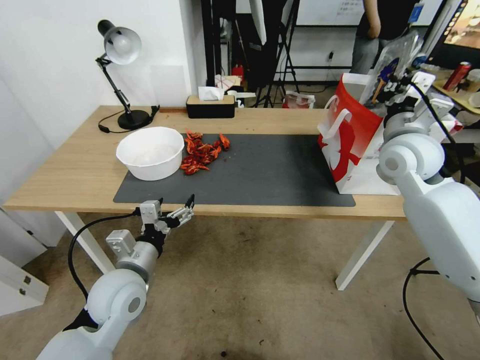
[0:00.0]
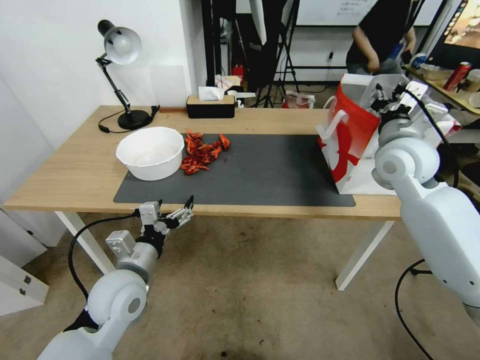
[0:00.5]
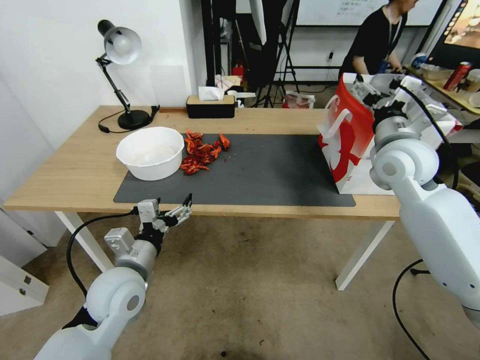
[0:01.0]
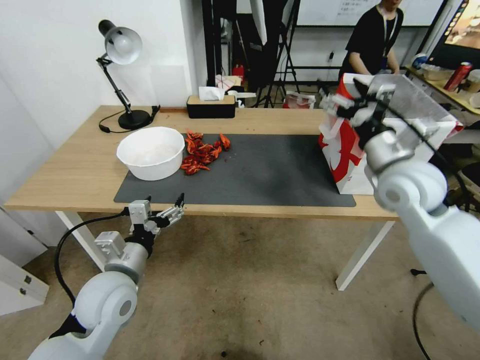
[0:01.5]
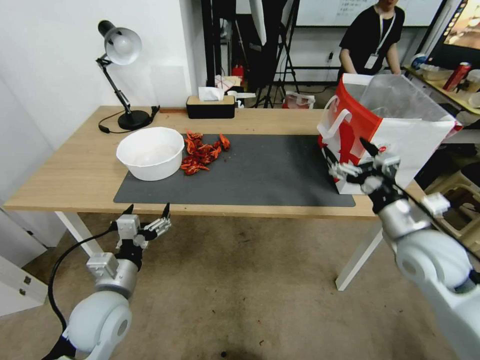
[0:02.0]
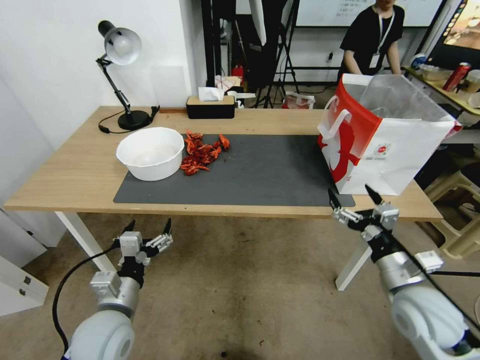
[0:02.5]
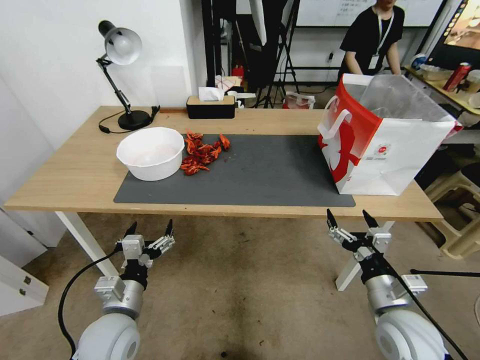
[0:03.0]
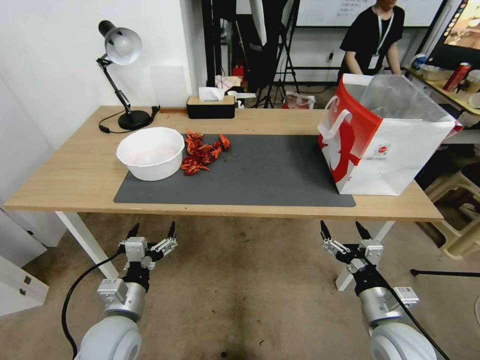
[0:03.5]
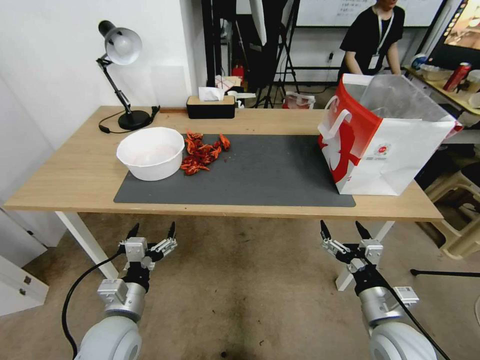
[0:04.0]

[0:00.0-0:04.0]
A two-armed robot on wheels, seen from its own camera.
Task of the whole recording: Close the takeout container lid, then place the container into the takeout bag.
0:00.0 to 0:02.0: The right gripper moves backward and downward, approximately 20 cm, and opens its fingers. Meanwhile the left gripper changes place by approximately 5 cm.
0:02.0 to 0:04.0: The left gripper ends up some 5 cm from where it was. Meanwhile the right gripper is displaced downward and backward by some 15 cm.

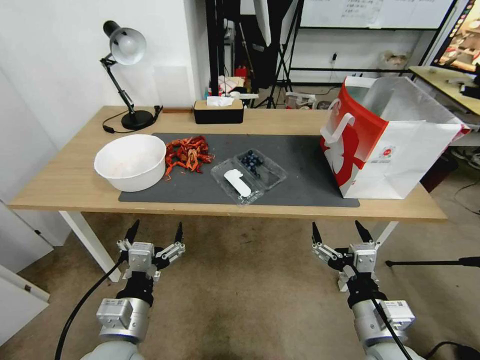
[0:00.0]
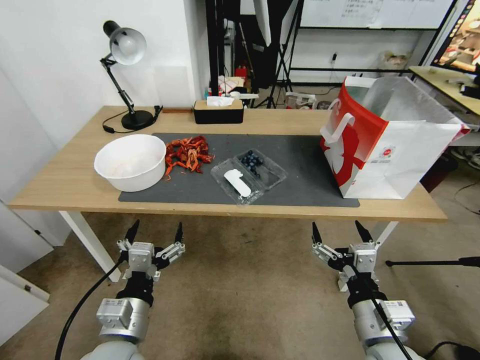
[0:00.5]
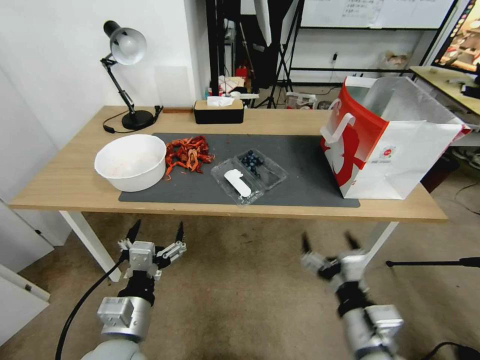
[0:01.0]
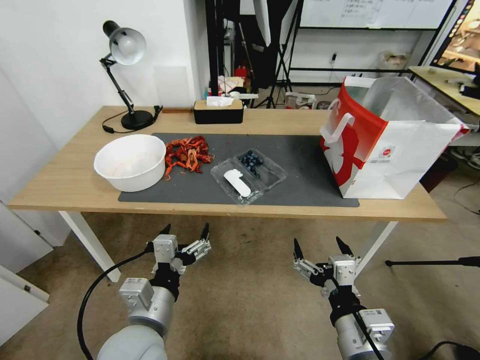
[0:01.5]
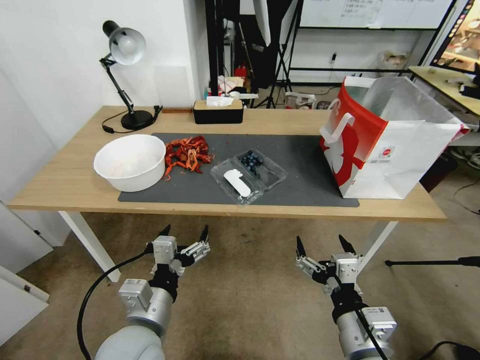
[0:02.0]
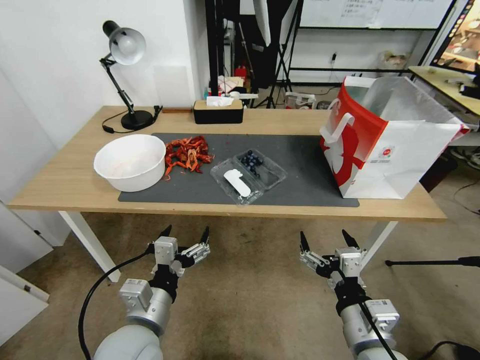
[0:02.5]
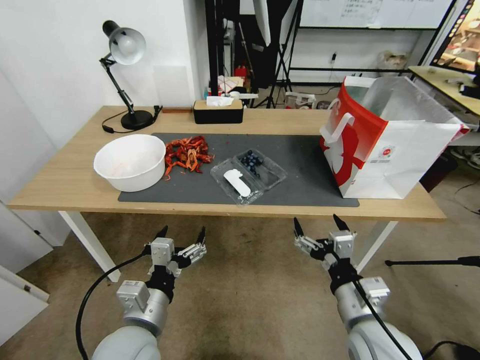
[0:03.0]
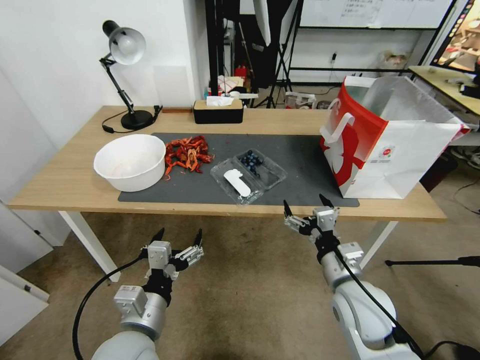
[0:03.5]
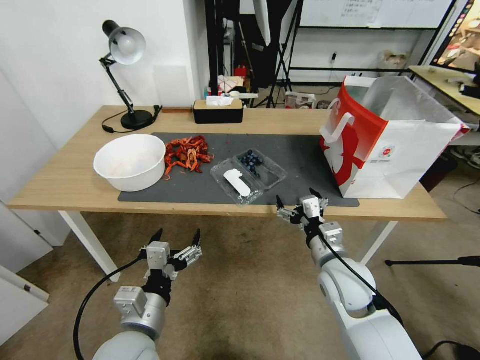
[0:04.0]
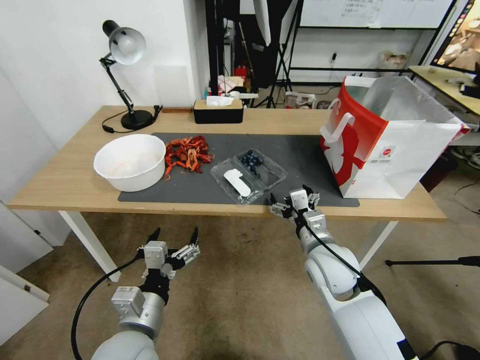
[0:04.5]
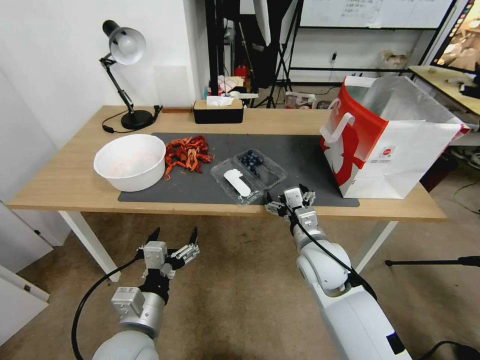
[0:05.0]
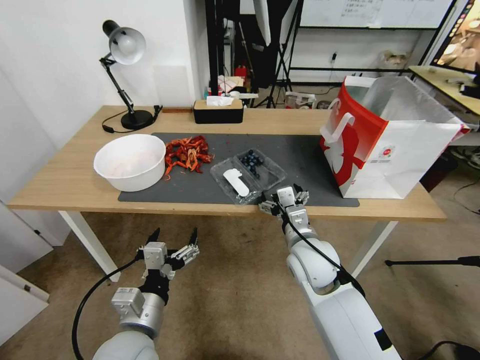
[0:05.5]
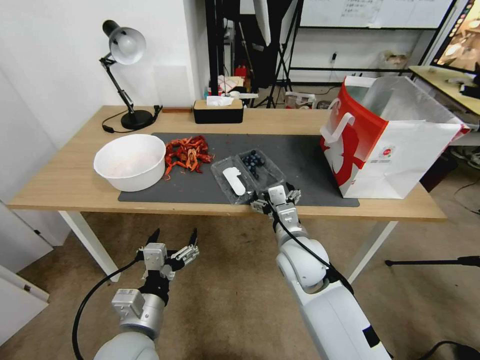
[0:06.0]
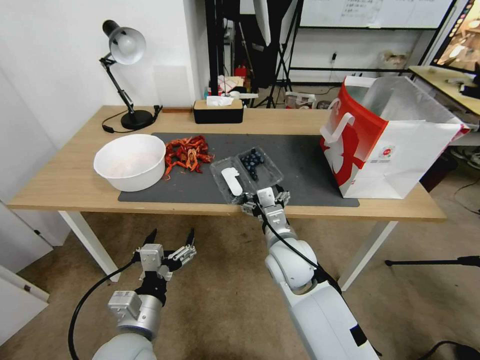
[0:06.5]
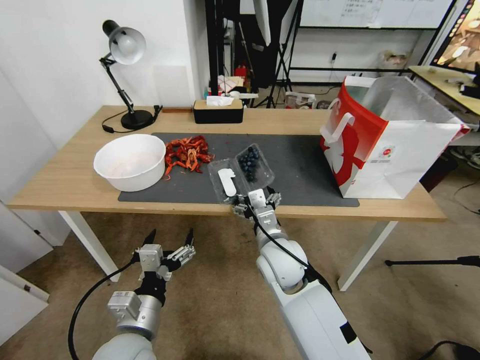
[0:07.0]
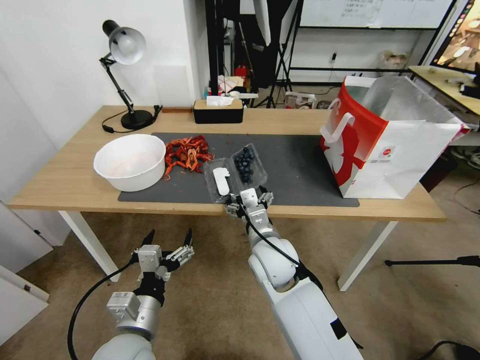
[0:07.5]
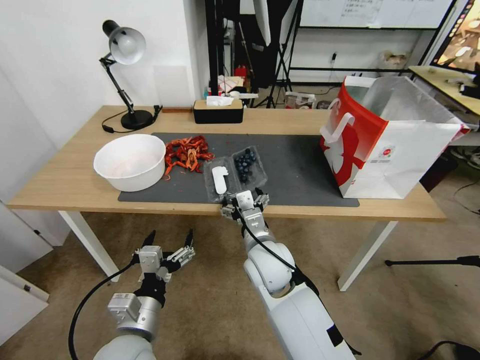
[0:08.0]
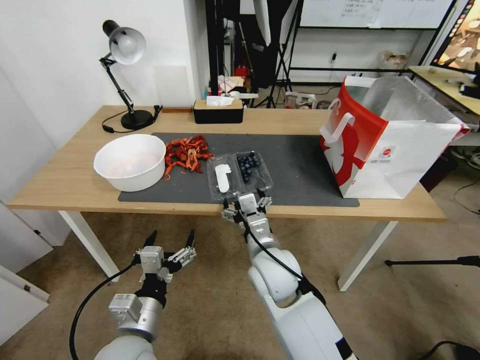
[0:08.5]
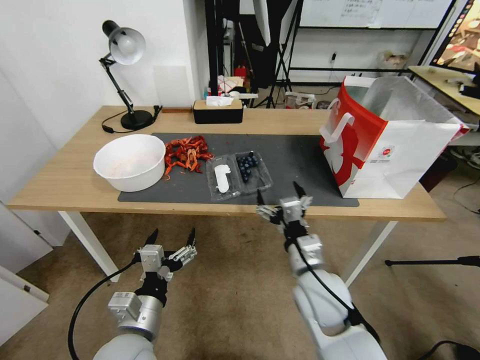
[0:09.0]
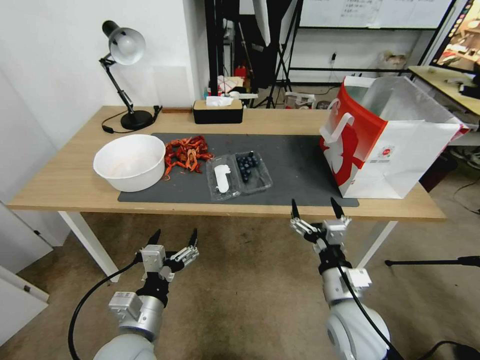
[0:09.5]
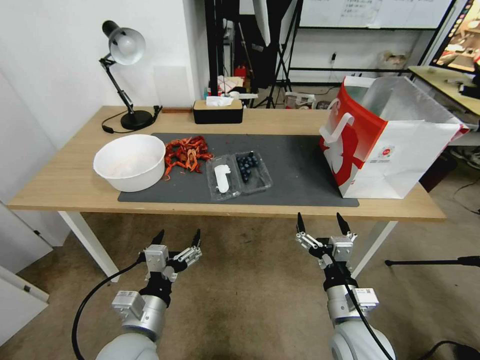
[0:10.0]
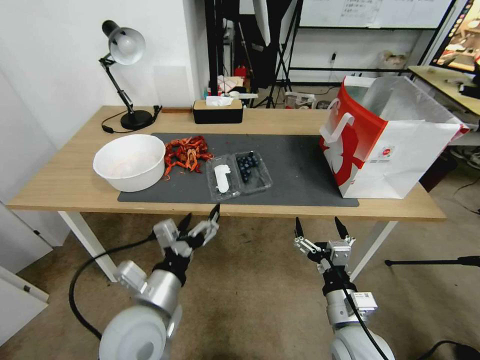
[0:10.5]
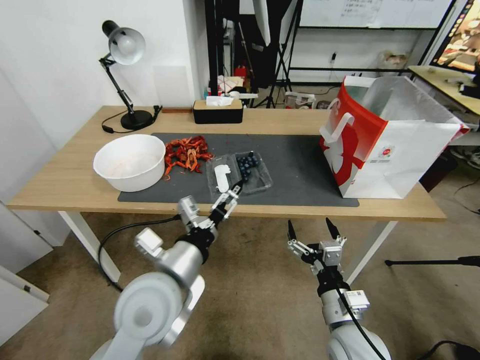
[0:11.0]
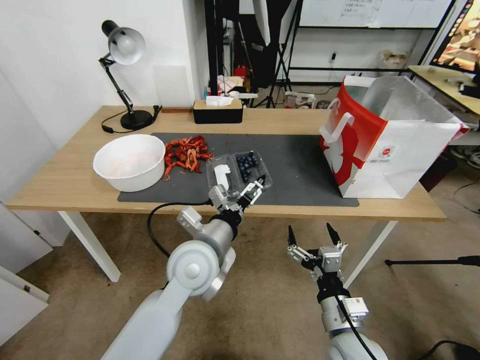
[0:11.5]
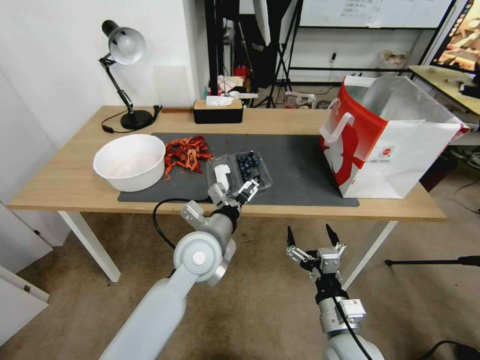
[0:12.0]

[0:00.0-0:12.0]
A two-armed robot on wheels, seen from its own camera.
Task of the whole recording: Close the takeout container lid, then place the container into the takeout bag.
0:02.0 to 0:04.0: The right gripper goes about 15 cm forward.
0:04.0 to 0:06.0: The right gripper is displaced to the left by some 10 cm.
0:06.0 to 0:08.0: The right gripper moves to the left, roughly 5 cm.
0:08.0 to 0:10.0: The right gripper moves to the right and backward, some 20 cm.
0:10.0 to 0:12.0: The left gripper goes approximately 20 cm forward, to the right and upward.

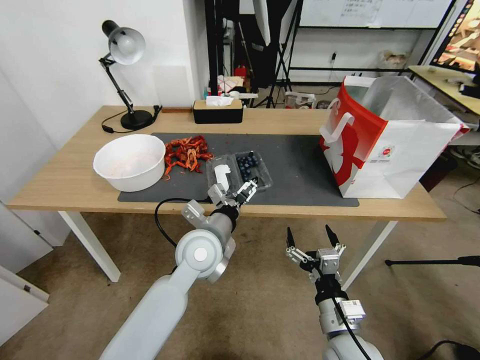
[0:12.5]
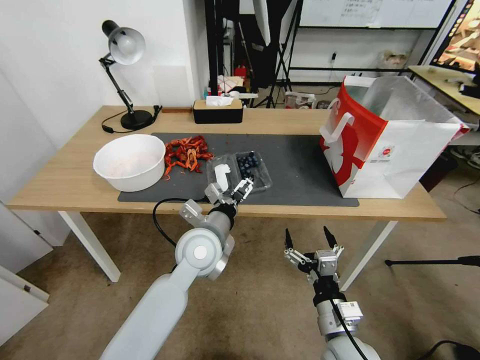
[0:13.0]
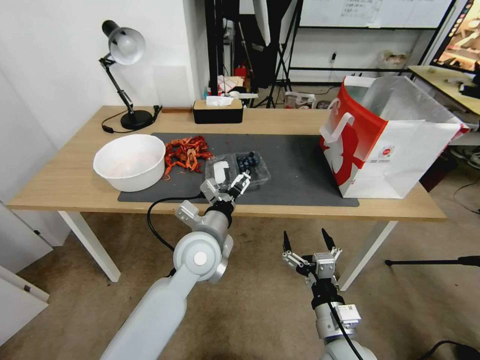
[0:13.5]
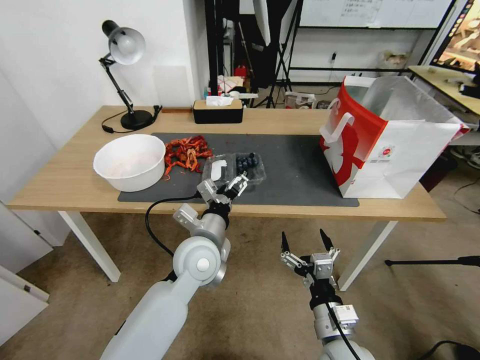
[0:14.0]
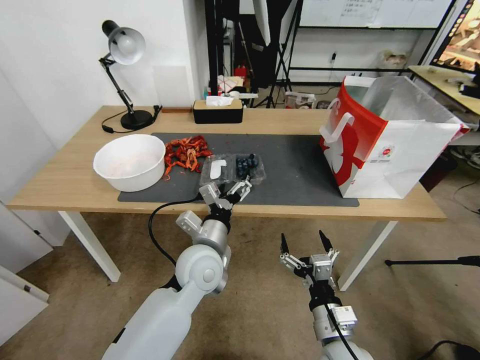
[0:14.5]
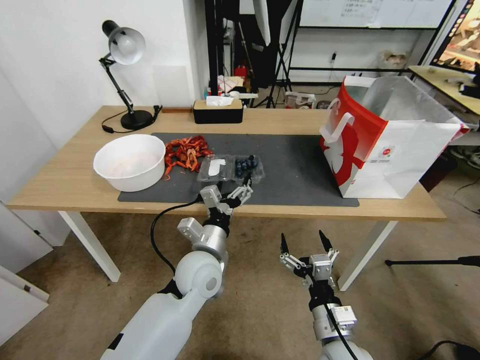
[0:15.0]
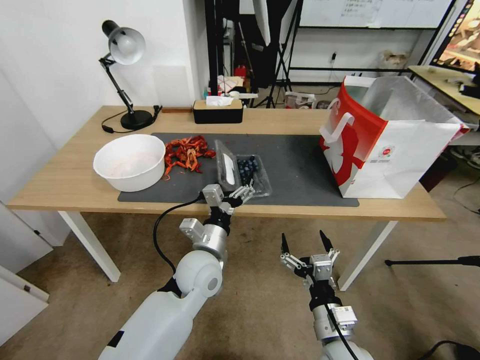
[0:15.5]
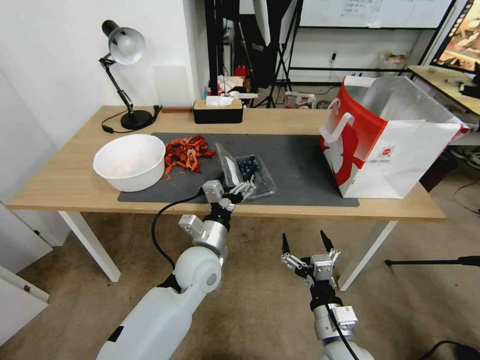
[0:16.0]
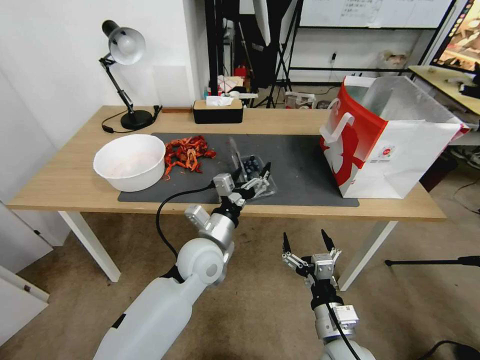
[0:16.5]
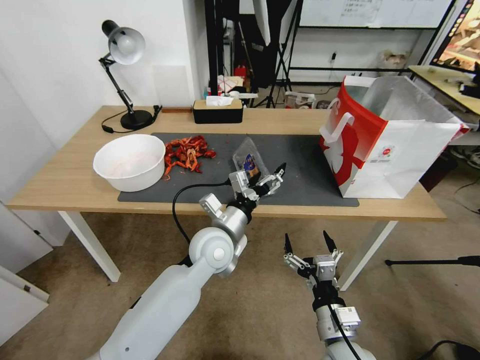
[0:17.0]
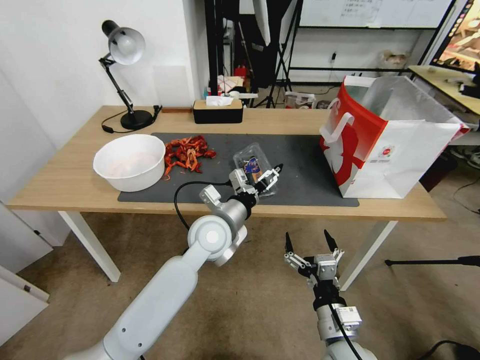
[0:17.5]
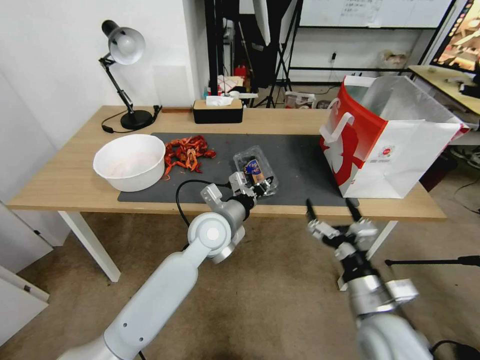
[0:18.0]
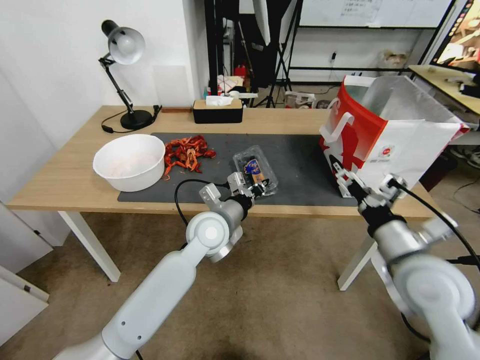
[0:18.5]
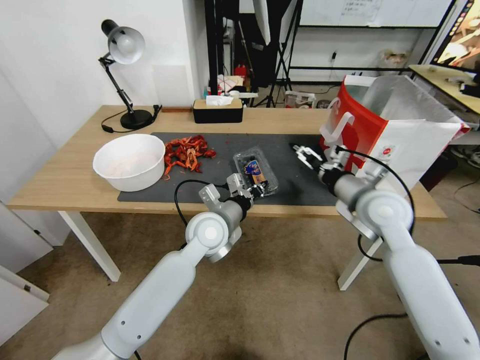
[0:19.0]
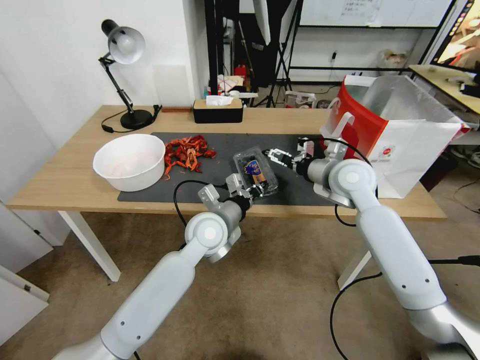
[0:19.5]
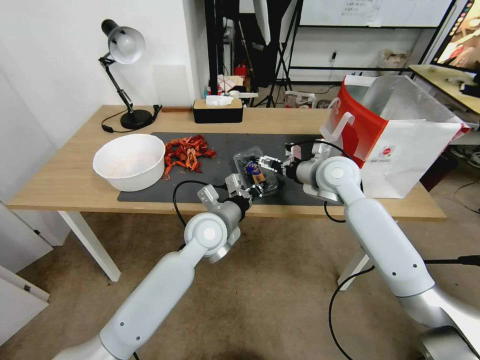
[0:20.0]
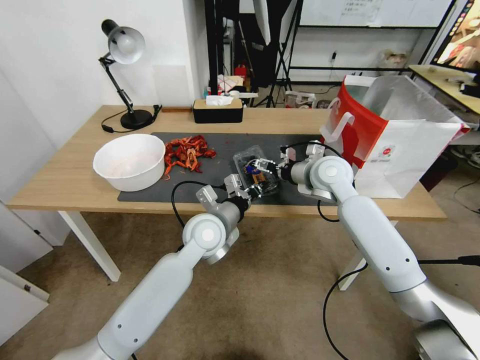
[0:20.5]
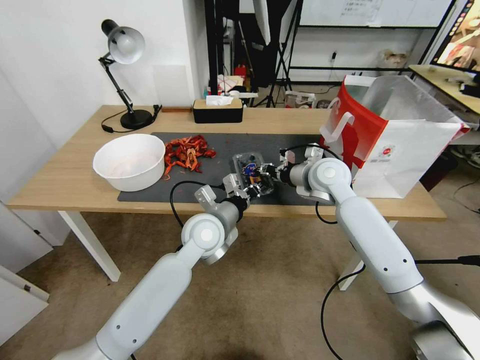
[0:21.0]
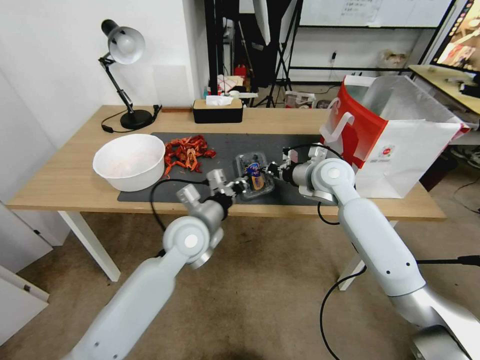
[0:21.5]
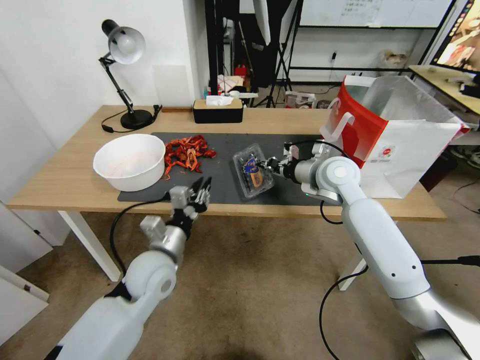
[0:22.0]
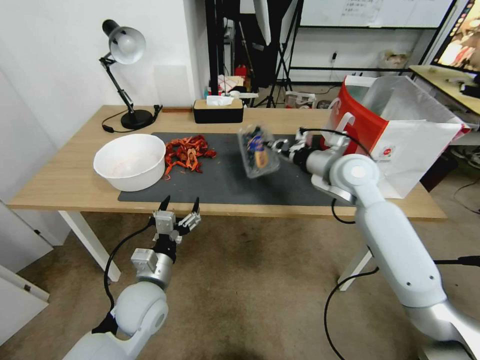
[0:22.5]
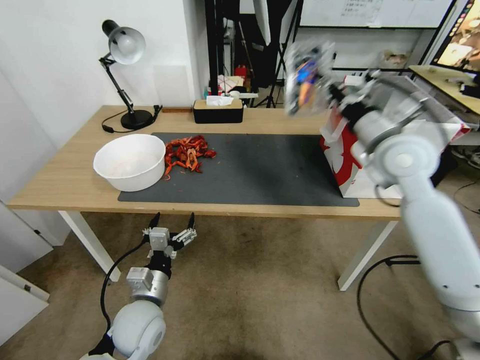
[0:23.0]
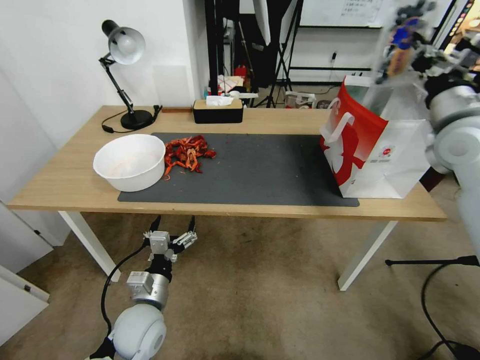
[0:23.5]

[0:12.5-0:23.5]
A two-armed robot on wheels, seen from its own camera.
Task of the whole recording: Close the takeout container lid, then place the container into the takeout bag.
0:14.5 to 0:16.0: The grippers stay close to where they were, moving slightly.
0:16.0 to 0:18.0: The right gripper heads upward and to the right, covering some 10 cm, while the left gripper heads forward, covering approximately 5 cm, and closes.
0:18.0 to 0:20.0: The right gripper goes about 30 cm forward.
0:20.0 to 0:21.5: The right gripper closes up.
0:21.5 to 0:23.5: The left gripper heads backward, downward and to the left, covering approximately 20 cm, and opens, while the right gripper travels to the right, upward and backward by about 25 cm.
